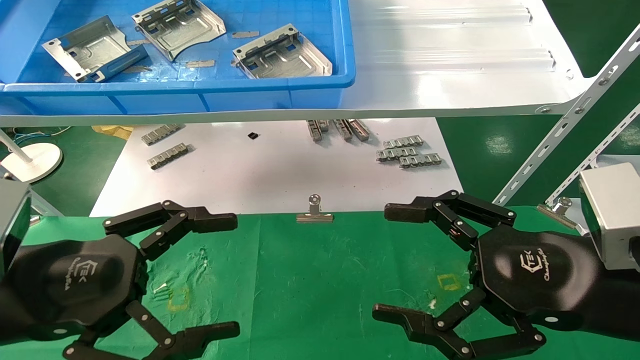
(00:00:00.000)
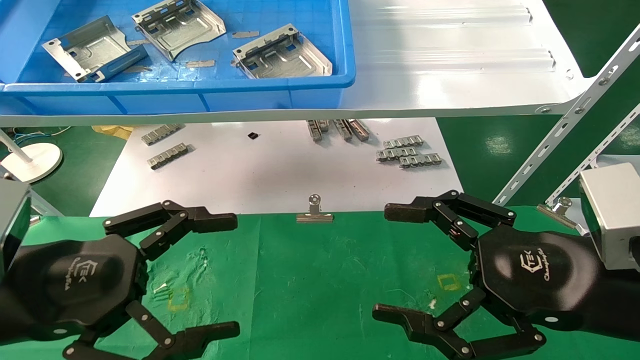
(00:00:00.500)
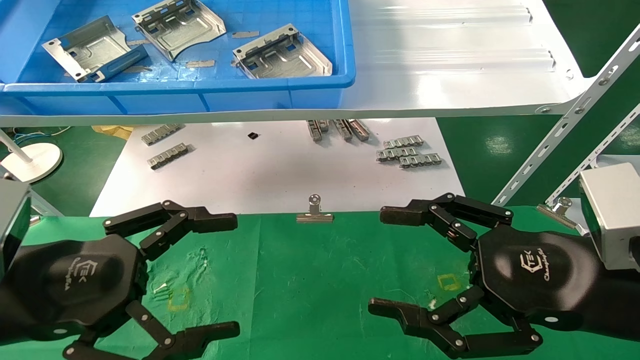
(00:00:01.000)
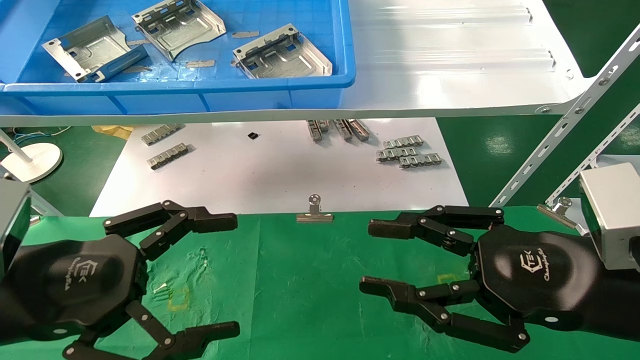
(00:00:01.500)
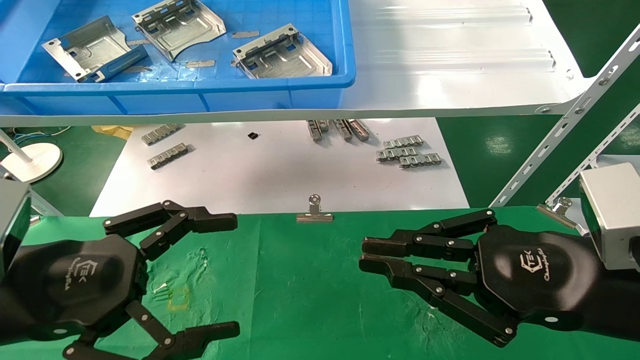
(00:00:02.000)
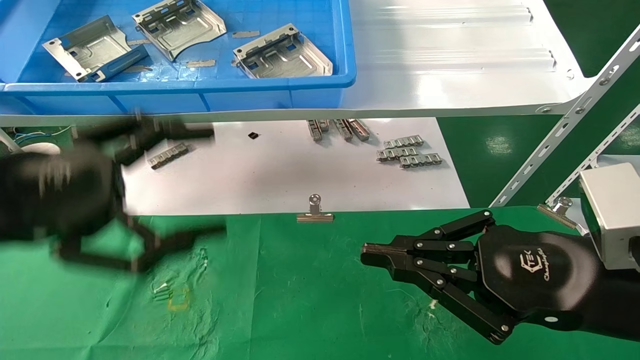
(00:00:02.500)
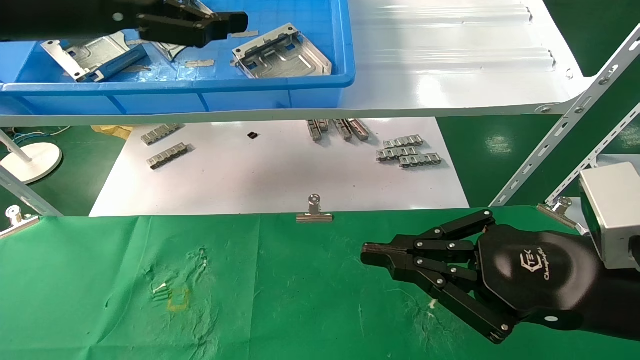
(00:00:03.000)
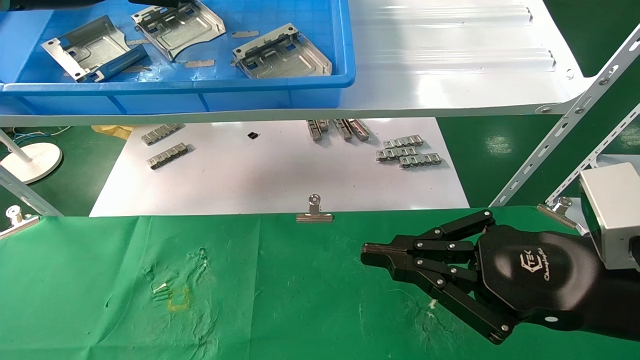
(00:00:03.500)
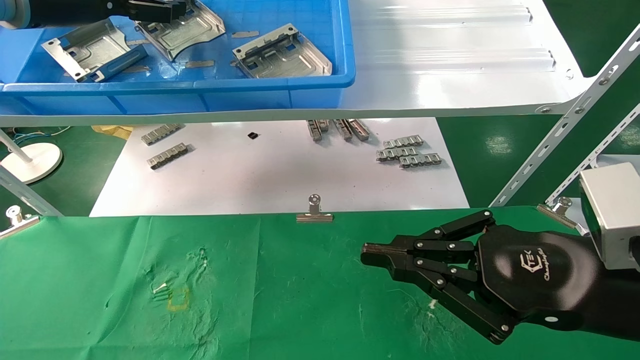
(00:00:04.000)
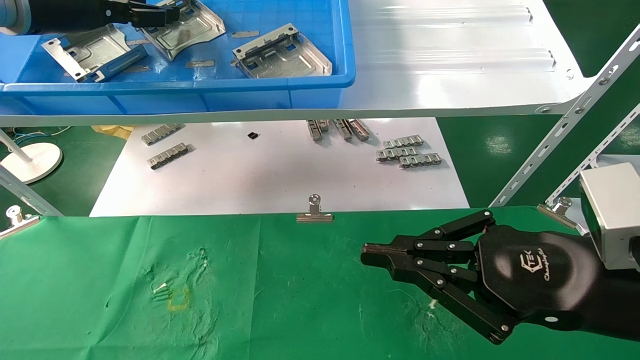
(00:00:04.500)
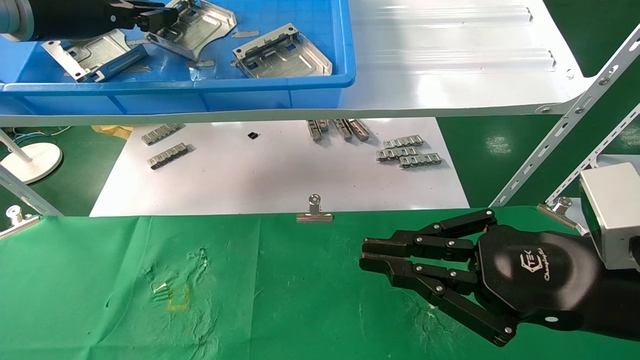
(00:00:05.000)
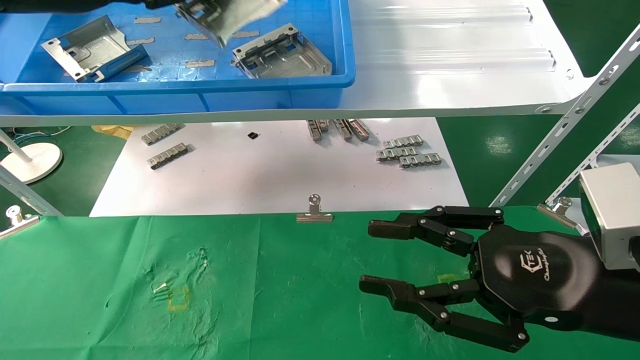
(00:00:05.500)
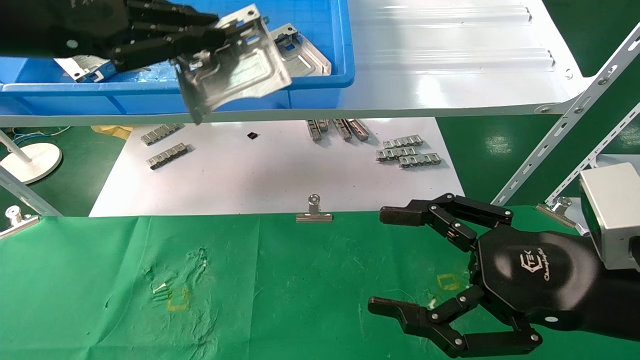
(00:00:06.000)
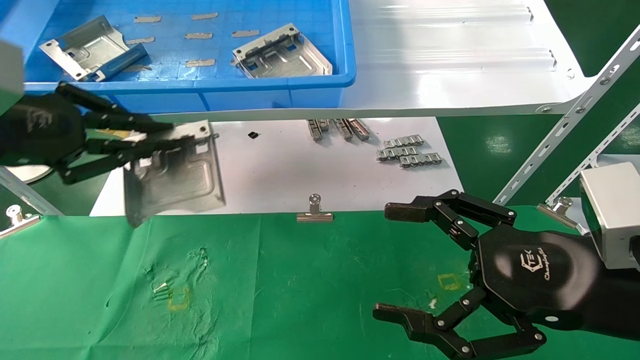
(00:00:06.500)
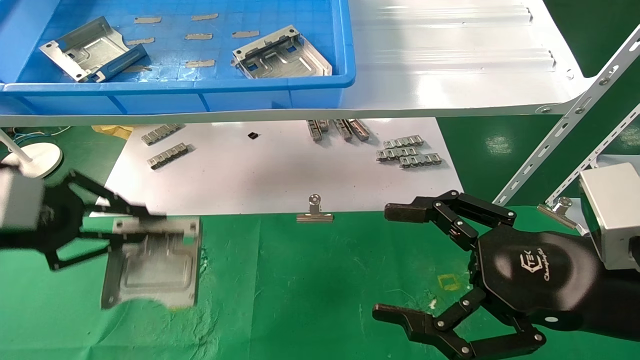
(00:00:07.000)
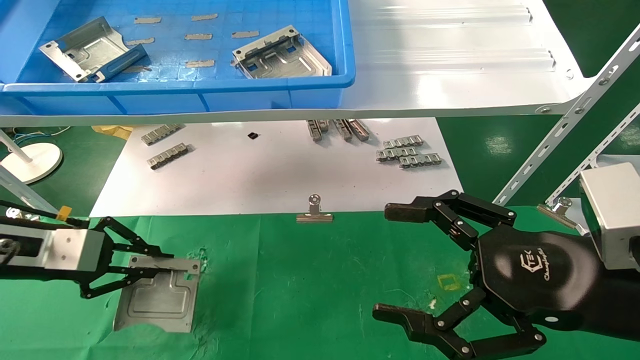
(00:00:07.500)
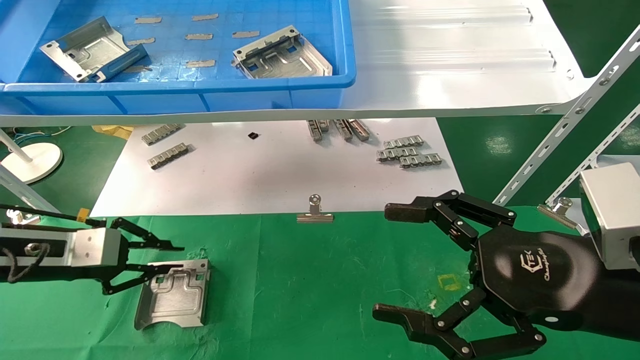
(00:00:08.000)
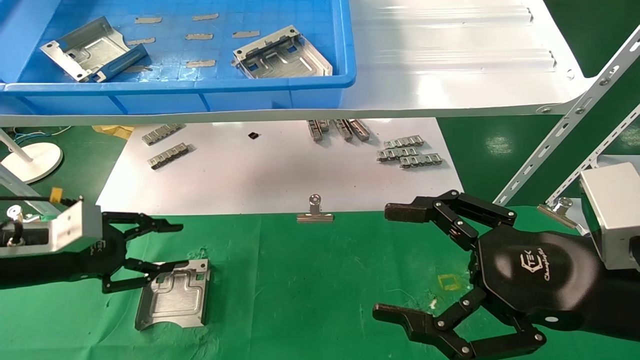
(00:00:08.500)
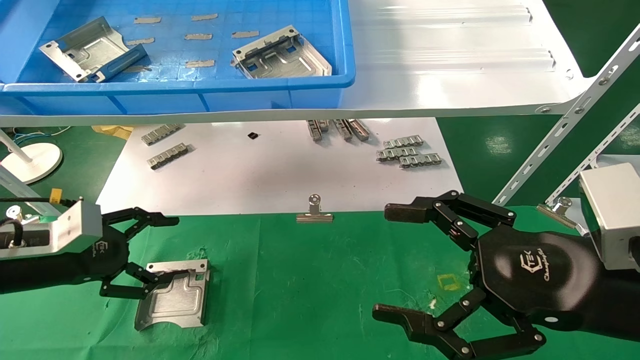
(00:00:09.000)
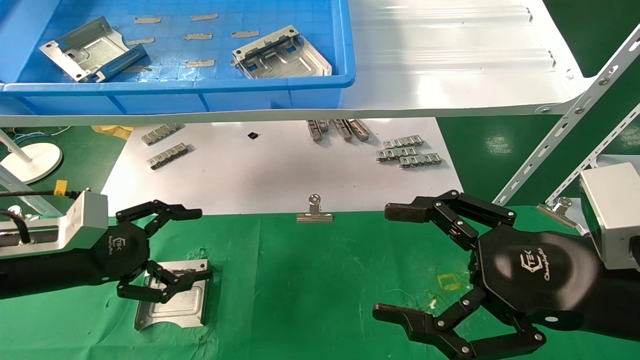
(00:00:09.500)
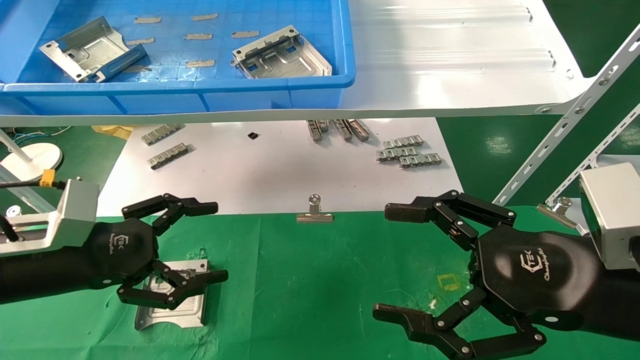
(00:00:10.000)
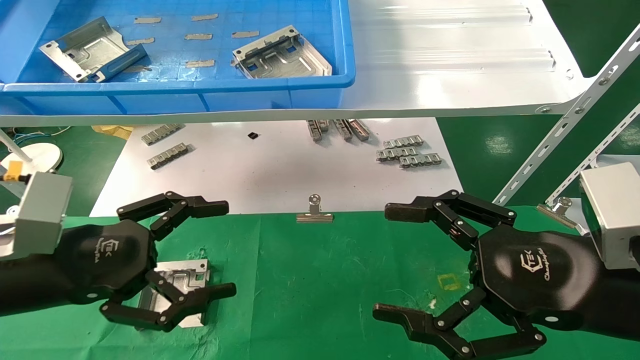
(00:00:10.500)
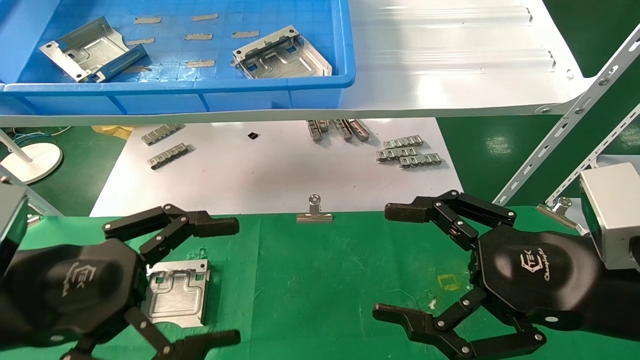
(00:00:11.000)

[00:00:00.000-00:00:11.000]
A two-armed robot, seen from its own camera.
Task of the whole recording: use the mechanical arm to pick up the parts and place them on the table.
Step, 00:00:02.500 to 00:00:05.000: Pick up the hard drive bracket from the feeding area.
Step, 00:00:05.500 to 00:00:08.500: Place the hard drive bracket into the box.
00:00:00.000 to 00:00:02.000: The right gripper closes up.
00:00:02.000 to 00:00:03.500: The left gripper is displaced upward and forward by about 30 cm.
00:00:03.500 to 00:00:05.500: The left gripper closes.
00:00:05.500 to 00:00:07.500: The right gripper opens up; the left gripper travels downward by some 25 cm.
00:00:07.500 to 00:00:09.000: The left gripper opens.
00:00:09.000 to 00:00:11.000: The left gripper travels backward, to the right and upward by some 15 cm.
